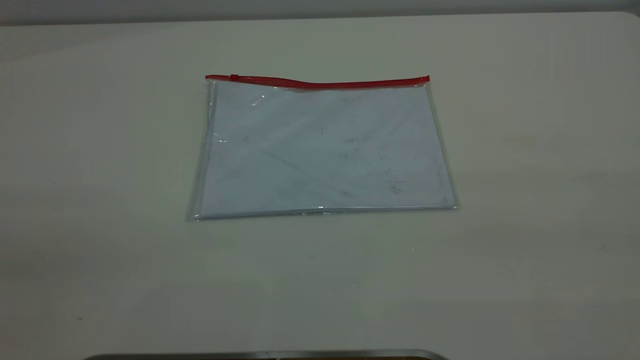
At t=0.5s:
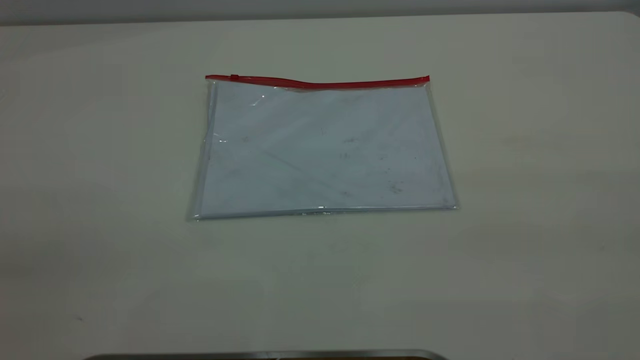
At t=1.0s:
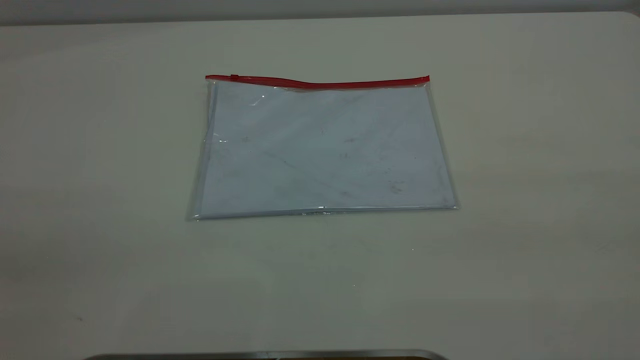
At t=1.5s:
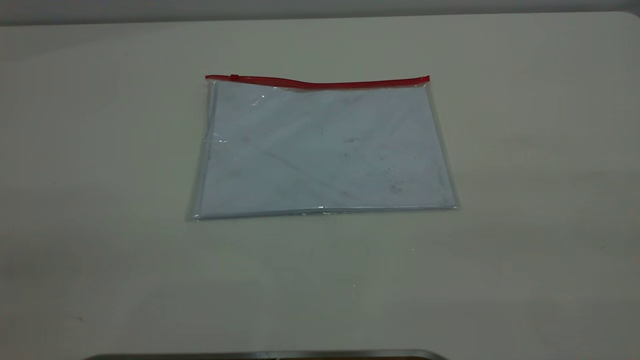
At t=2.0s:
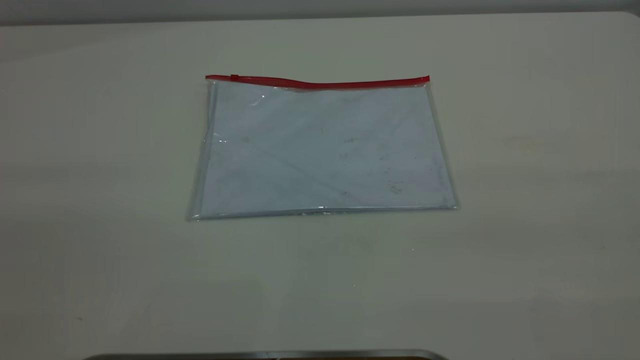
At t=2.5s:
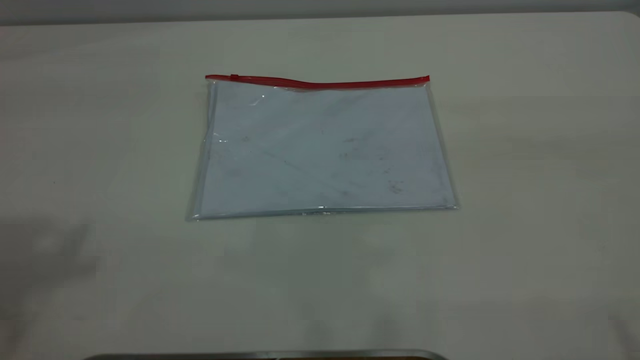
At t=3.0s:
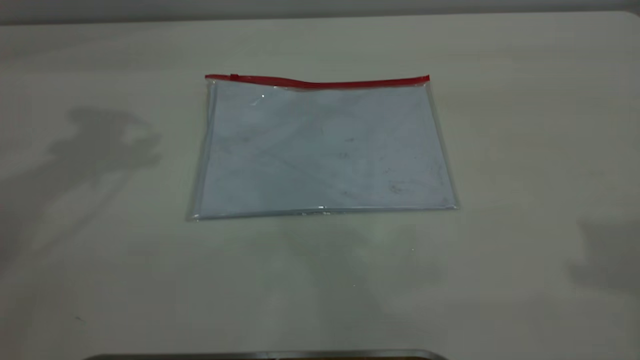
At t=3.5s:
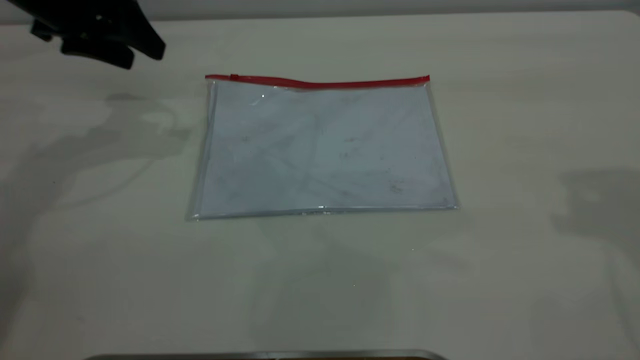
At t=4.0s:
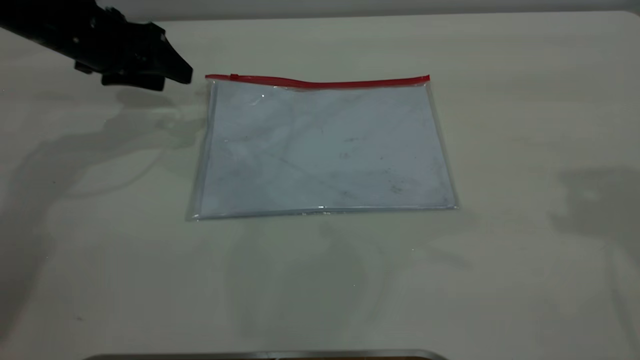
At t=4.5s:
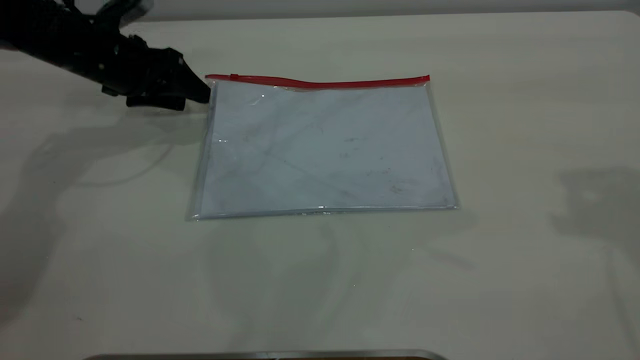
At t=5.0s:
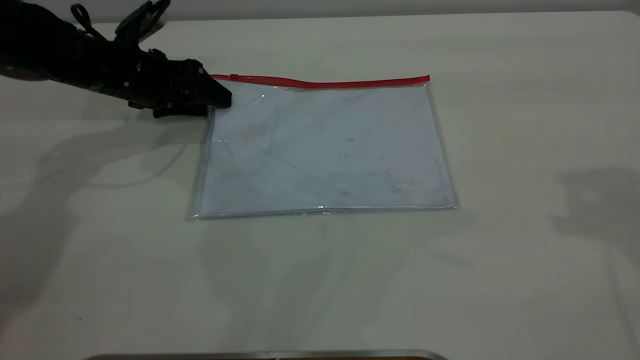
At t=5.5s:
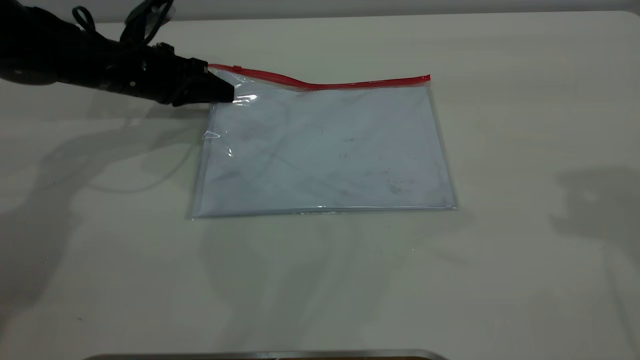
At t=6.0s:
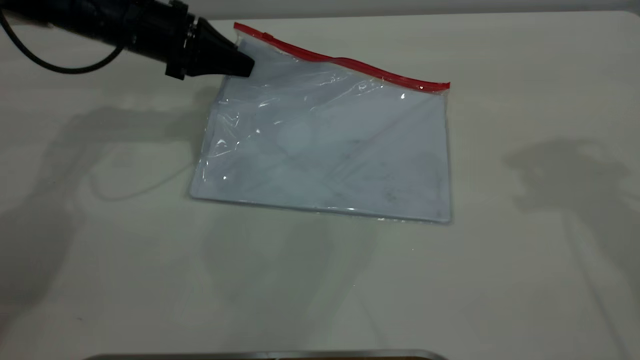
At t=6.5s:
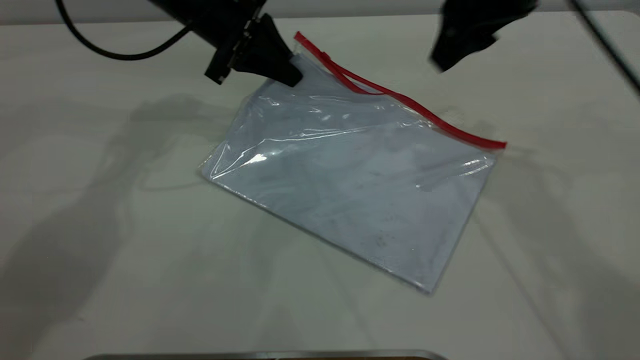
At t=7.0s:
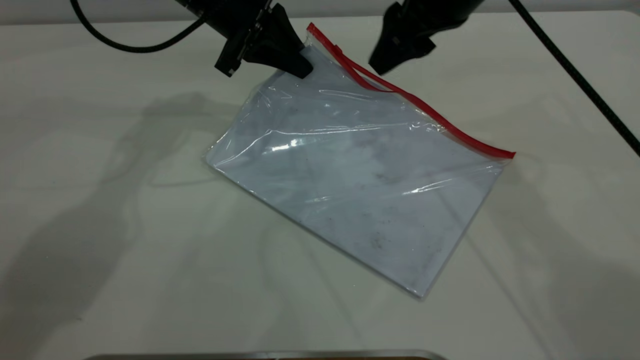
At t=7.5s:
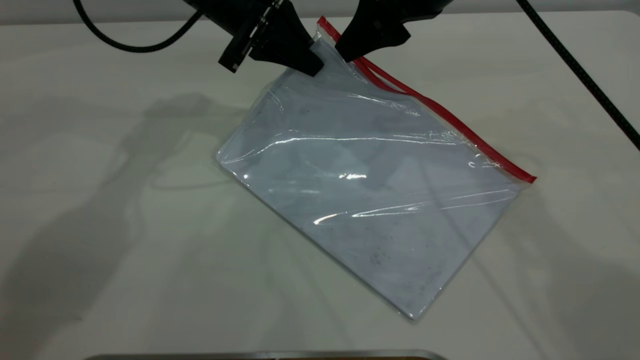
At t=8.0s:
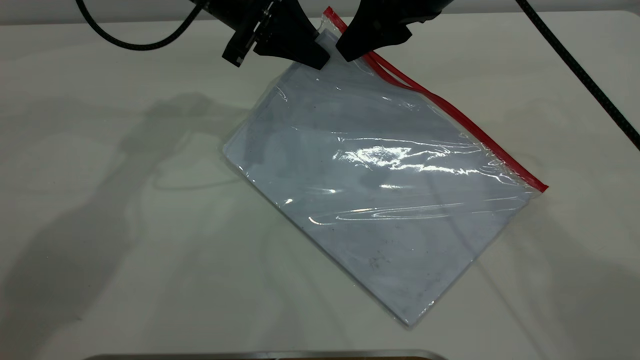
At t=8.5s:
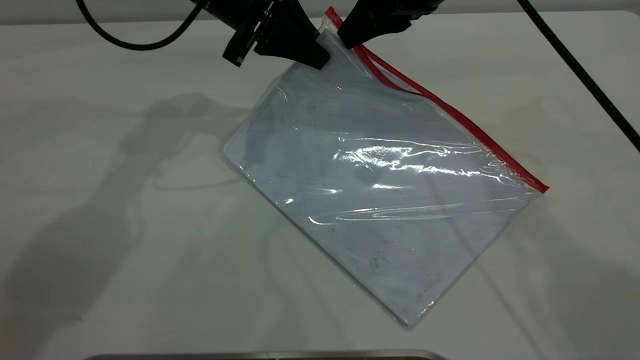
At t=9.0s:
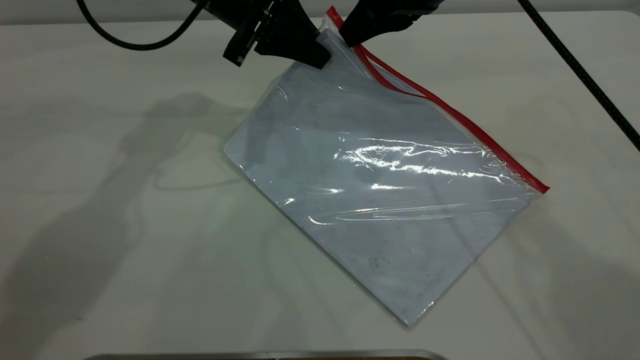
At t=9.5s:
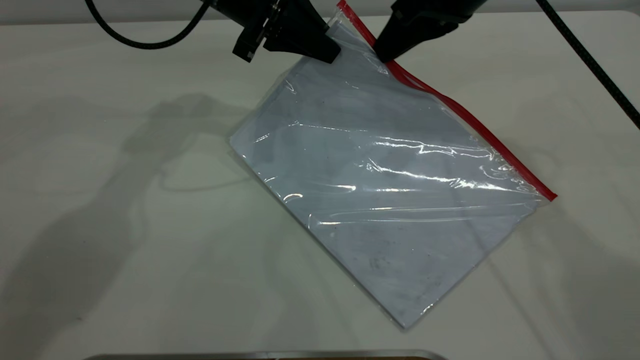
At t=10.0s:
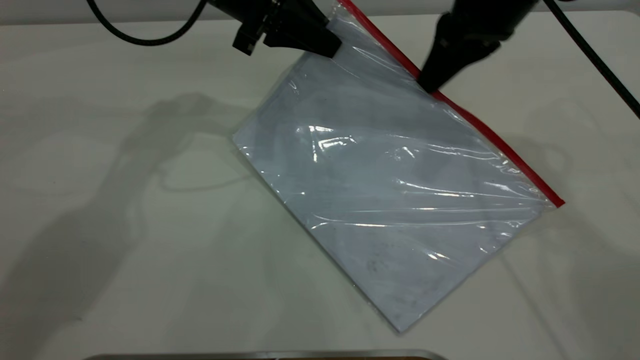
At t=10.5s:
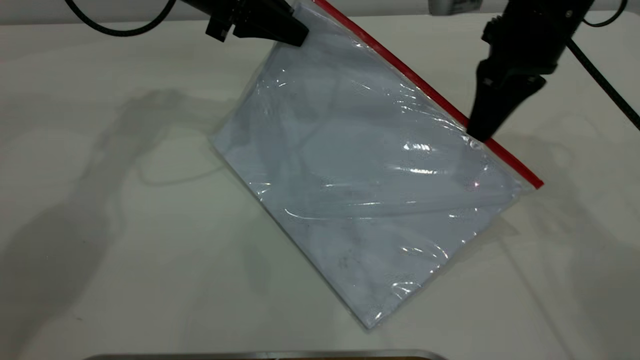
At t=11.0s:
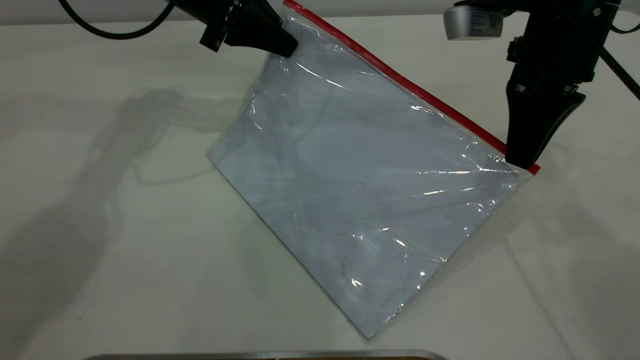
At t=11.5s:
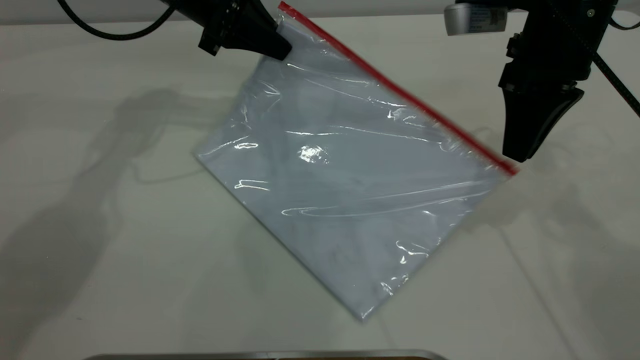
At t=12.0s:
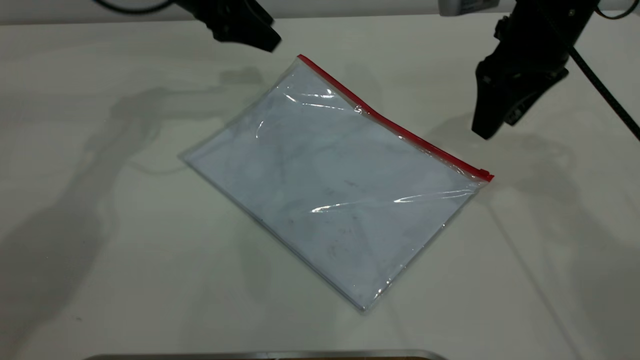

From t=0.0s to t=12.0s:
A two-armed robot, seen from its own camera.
Step, from t=0.0s to t=5.5s: Pick up the transparent plastic bag with the left gripper.
Step, from t=6.0s to t=11.5s: Pulling up the zipper on the transparent plastic bag with the right gripper to close it.
From t=2.0s to t=4.0s: The left gripper heads forward and downward, covering roughly 50 cm.
From t=4.0s to t=6.0s: The left gripper heads to the right, covering approximately 5 cm, and closes its fingers, while the right gripper travels forward by some 5 cm.
From t=6.0s to t=8.0s: The left gripper is displaced to the right by approximately 10 cm, while the right gripper moves to the left, downward and forward, roughly 20 cm.
From t=8.0s to t=10.0s: The right gripper is displaced to the right by some 5 cm, and closes.
From t=10.0s to t=12.0s: The left gripper heads to the left, covering approximately 5 cm, and opens up, while the right gripper opens its fingers.

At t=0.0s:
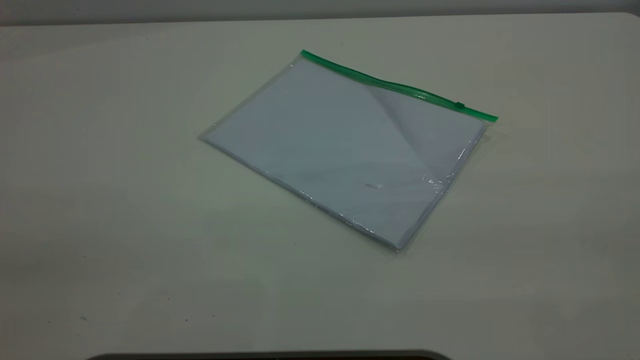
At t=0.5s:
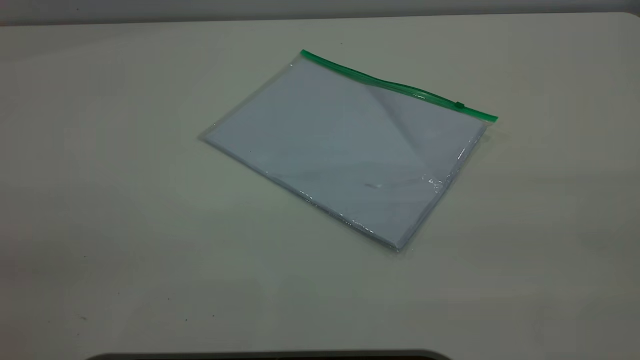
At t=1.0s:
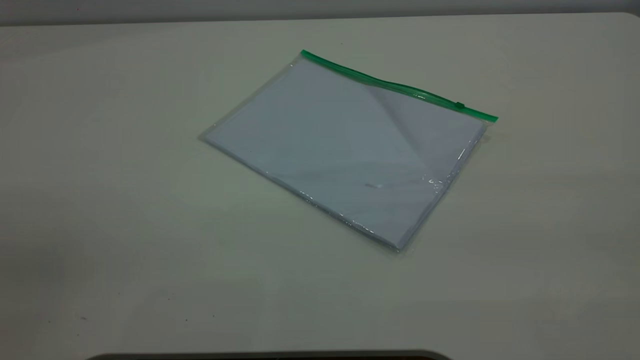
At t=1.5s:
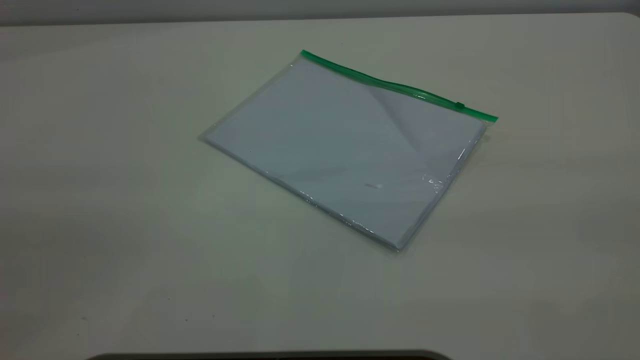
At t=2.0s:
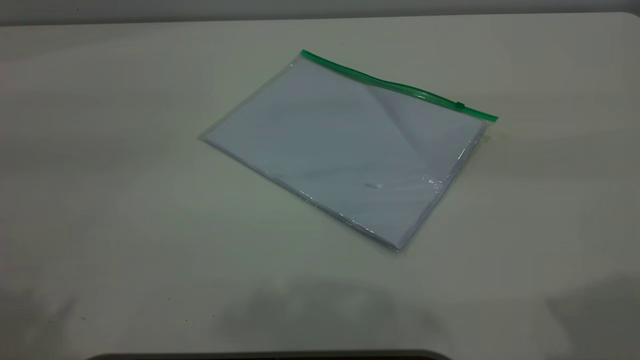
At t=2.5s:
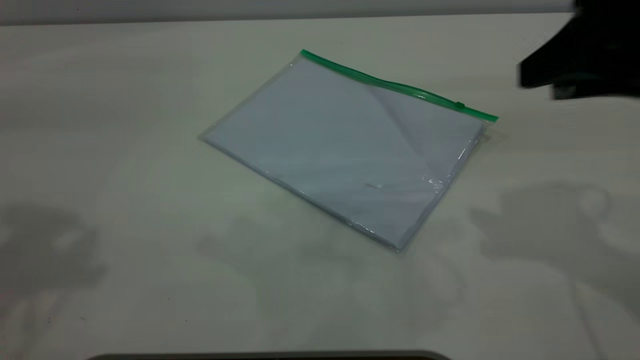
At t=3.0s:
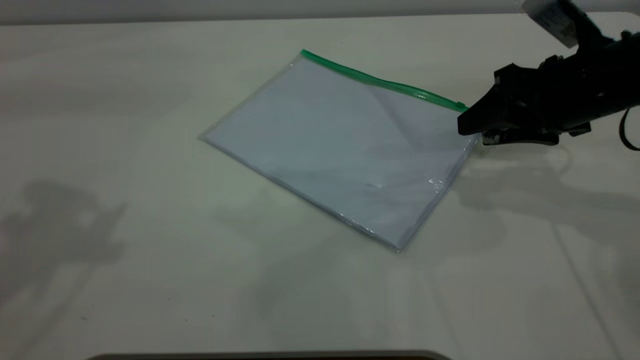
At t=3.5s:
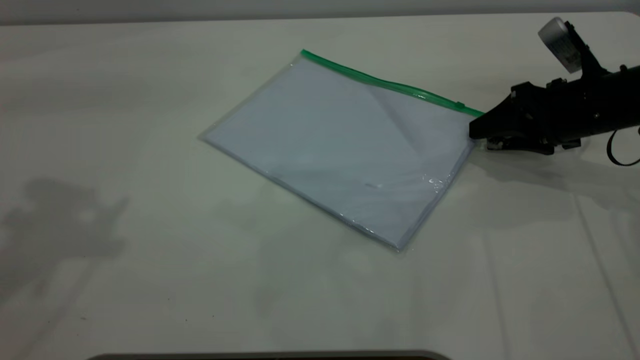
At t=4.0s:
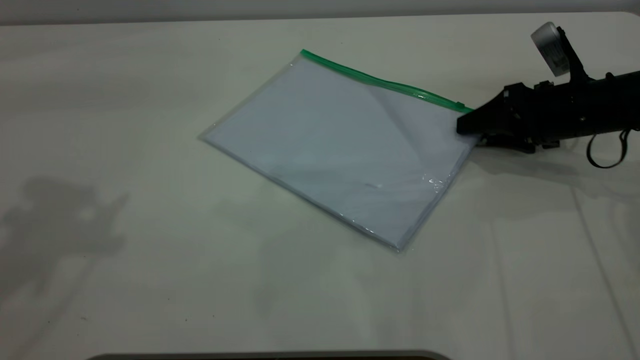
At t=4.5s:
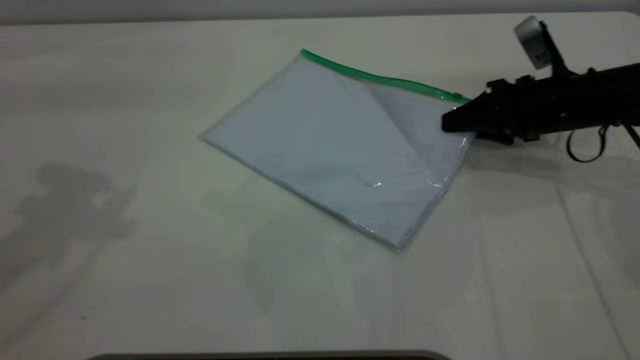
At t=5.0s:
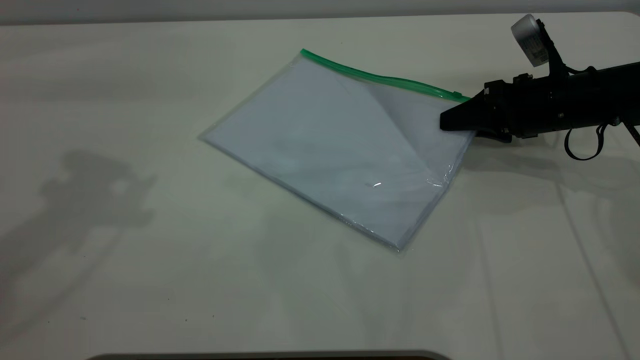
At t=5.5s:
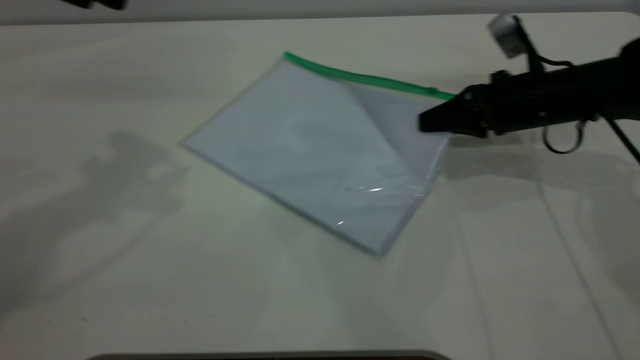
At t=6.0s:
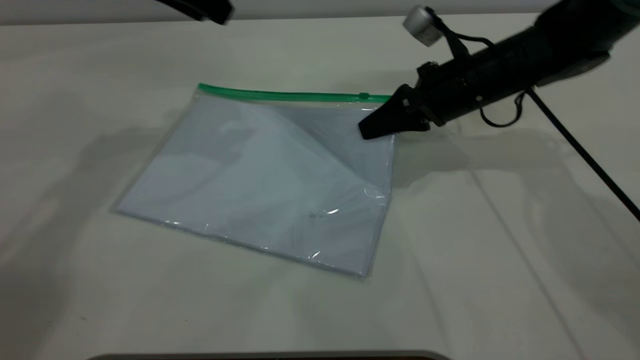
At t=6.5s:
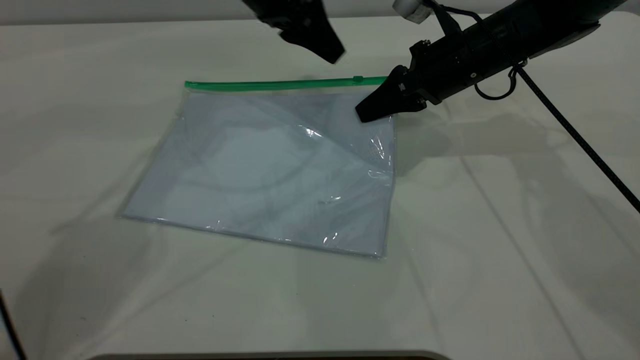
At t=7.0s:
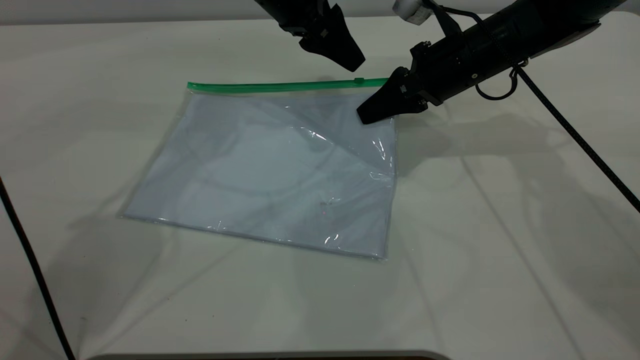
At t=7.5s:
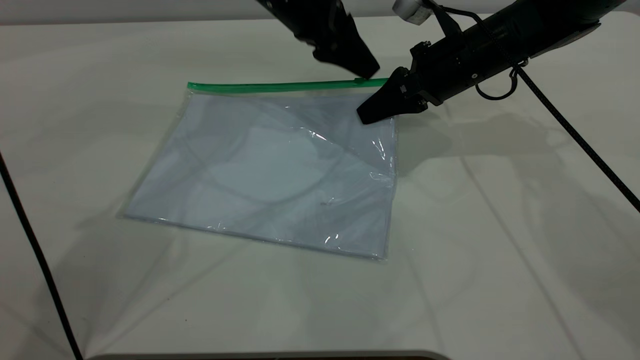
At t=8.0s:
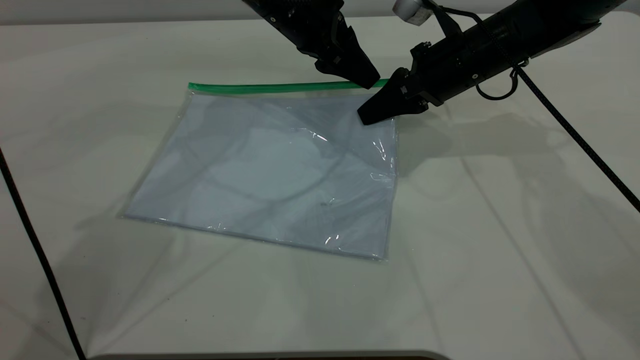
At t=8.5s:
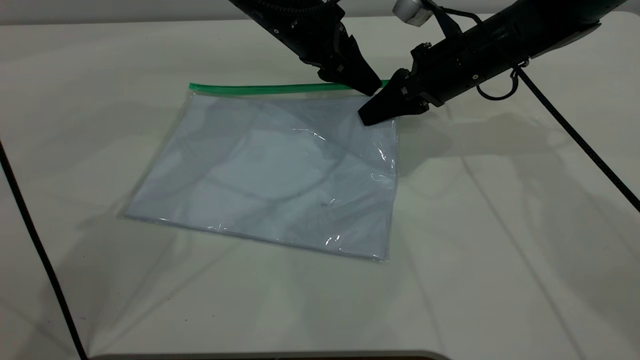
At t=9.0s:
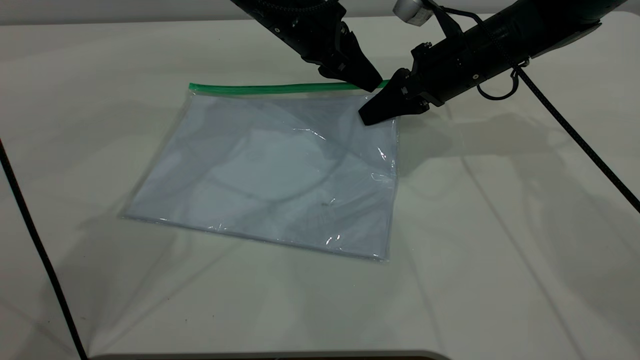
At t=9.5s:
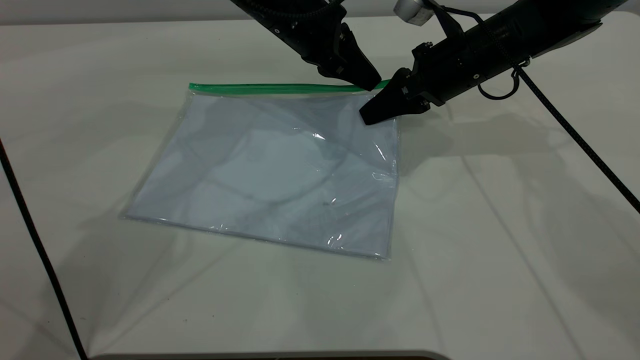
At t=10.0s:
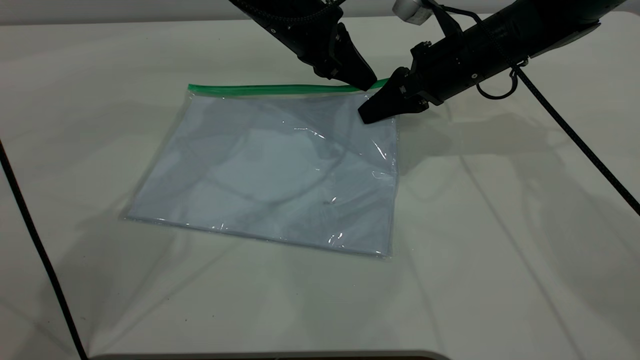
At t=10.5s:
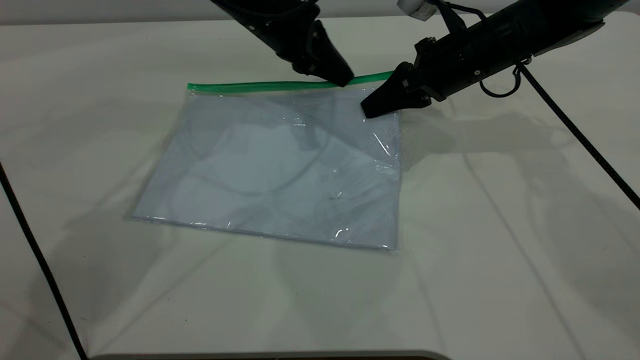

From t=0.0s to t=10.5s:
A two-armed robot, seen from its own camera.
Step, from t=0.0s to t=5.0s: Pick up the transparent plastic bag with the right gripper.
From t=2.0s to t=4.0s: The left gripper shifts some 10 cm forward, while the right gripper is displaced downward and forward by about 40 cm.
From t=4.0s to t=6.5s: The left gripper is displaced forward, to the right and downward by some 35 cm, while the right gripper goes approximately 15 cm to the left, and closes up.
From t=6.5s to t=8.5s: The left gripper ends up roughly 5 cm from where it was.
From t=8.5s to t=10.5s: The left gripper closes.
